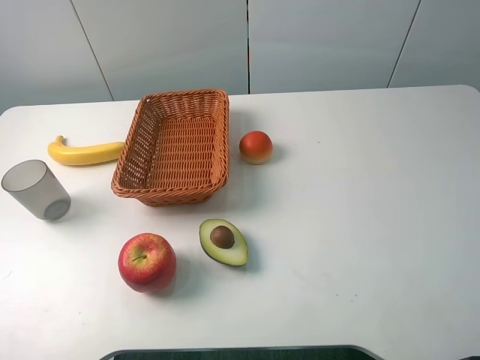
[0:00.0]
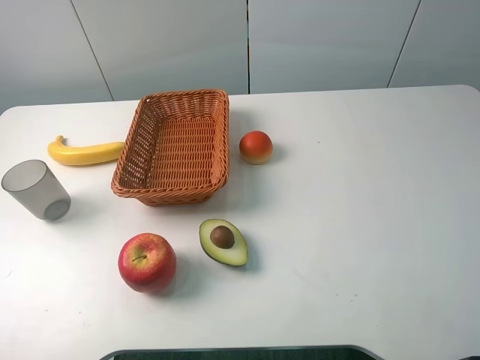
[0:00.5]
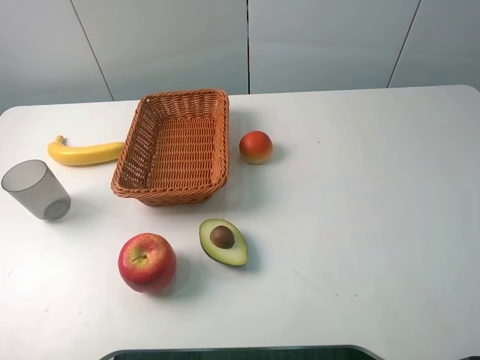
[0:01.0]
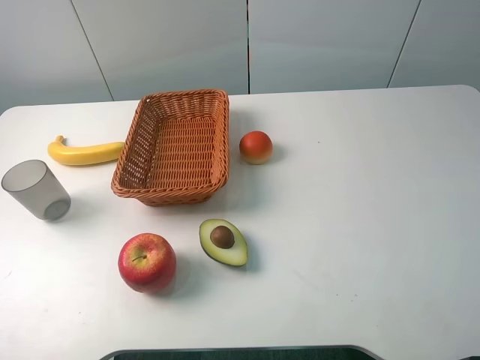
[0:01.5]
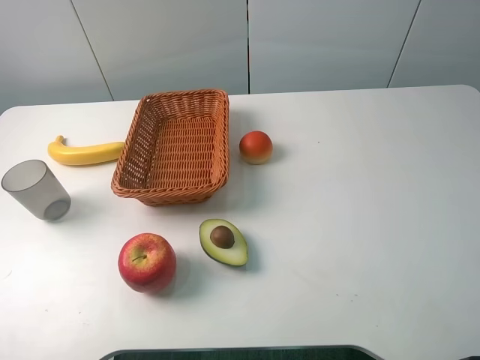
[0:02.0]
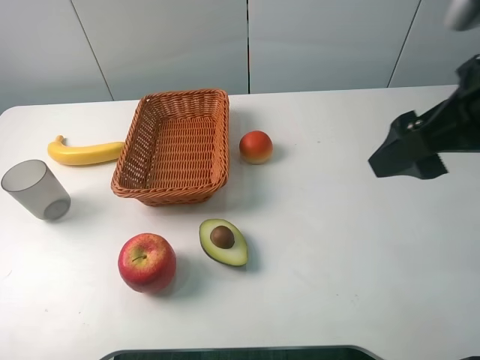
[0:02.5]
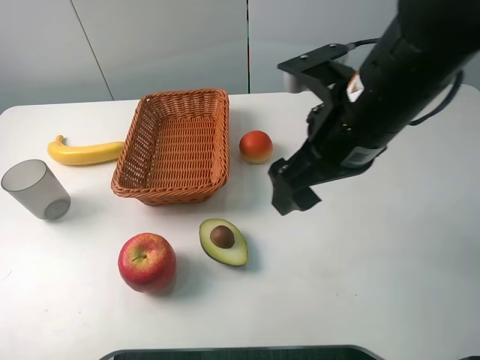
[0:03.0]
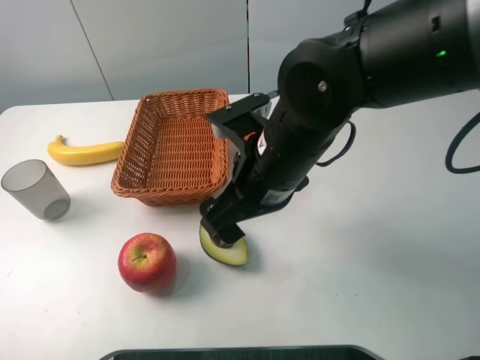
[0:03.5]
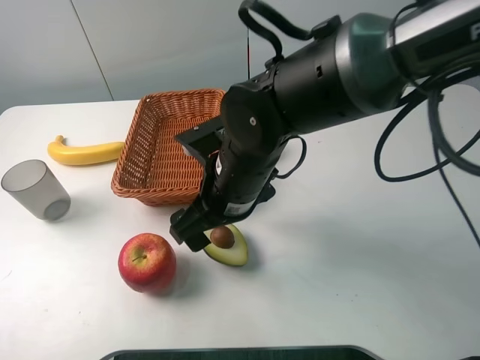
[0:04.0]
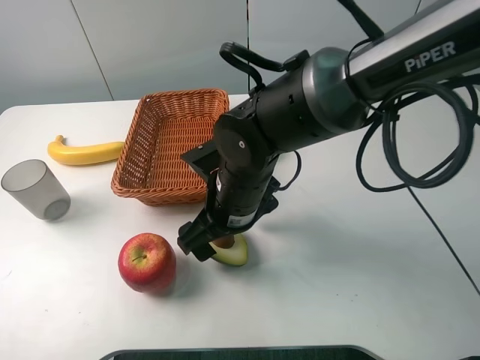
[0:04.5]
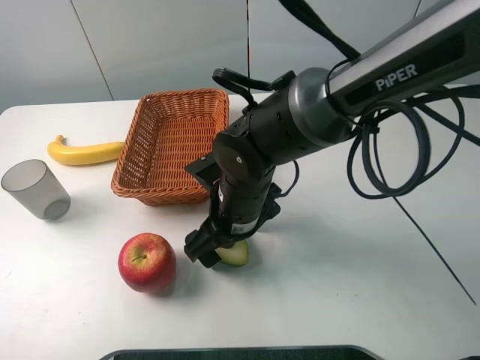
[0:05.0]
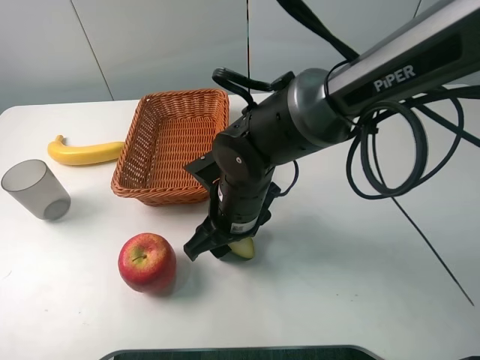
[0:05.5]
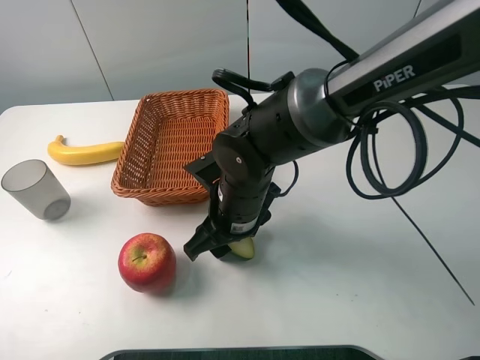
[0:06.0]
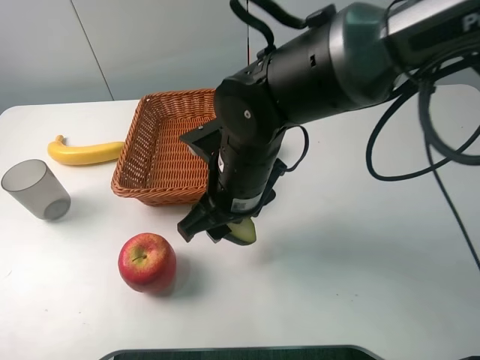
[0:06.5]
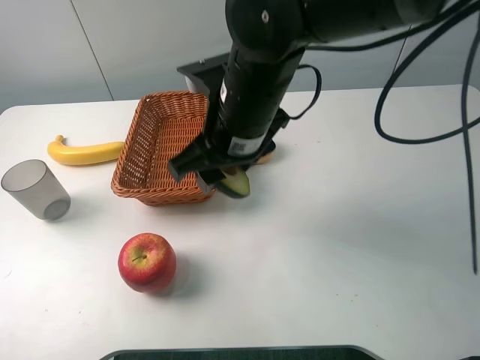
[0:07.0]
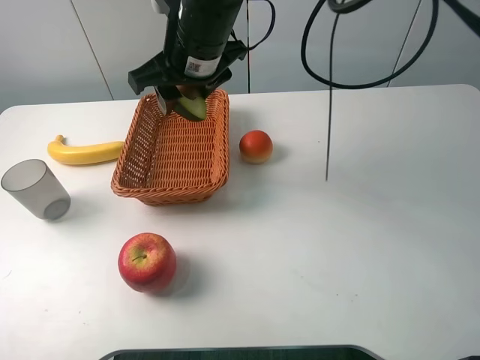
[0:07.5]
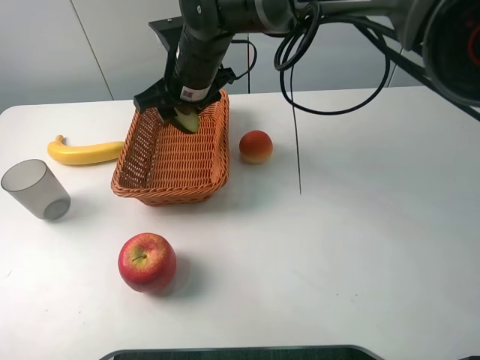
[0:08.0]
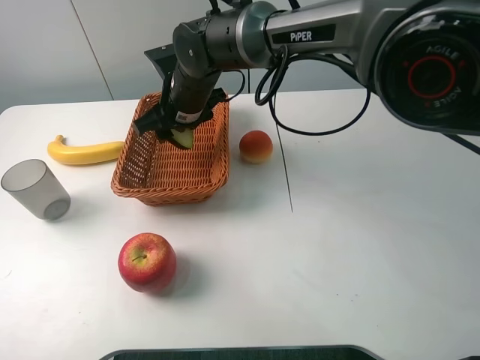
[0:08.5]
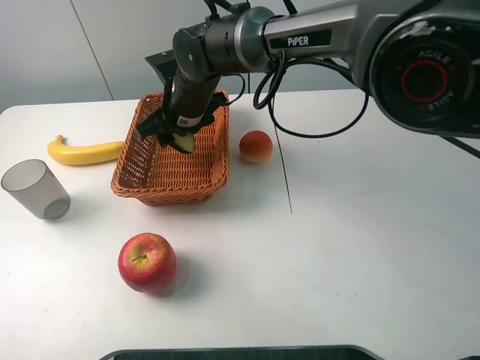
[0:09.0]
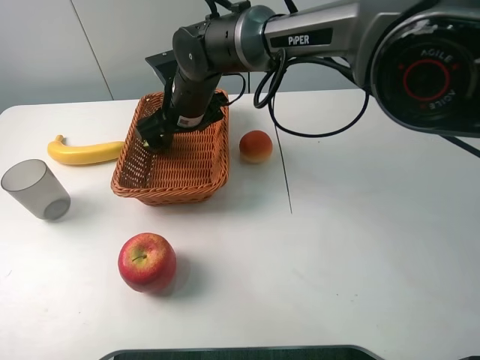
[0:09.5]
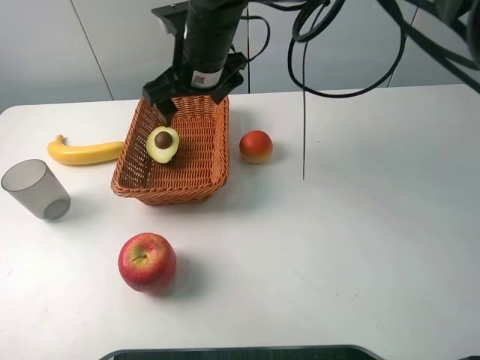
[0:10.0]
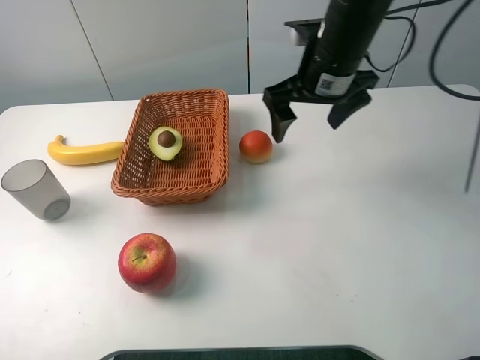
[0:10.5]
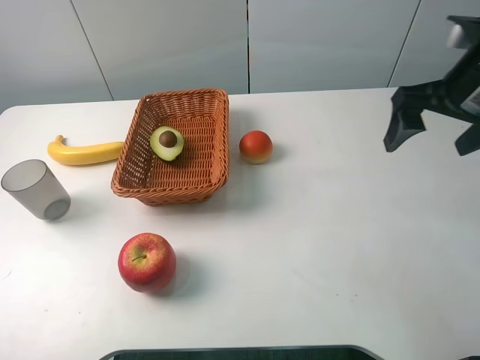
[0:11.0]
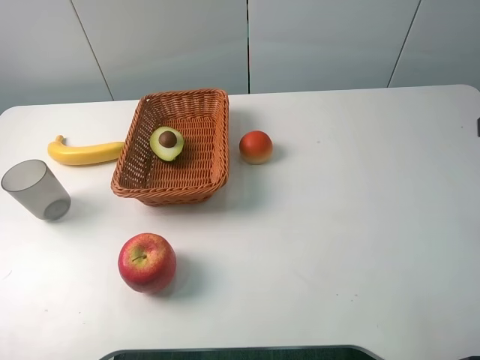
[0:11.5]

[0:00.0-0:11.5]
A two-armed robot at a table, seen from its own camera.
0:02.0 to 0:04.0: The right gripper heads to the left, downward and forward, covering some 35 cm.
0:04.0 to 0:06.0: The right gripper closes its fingers.
0:06.0 to 0:07.5: The right gripper heads upward and forward, covering some 20 cm.
0:07.5 to 0:09.5: The right gripper shifts some 10 cm downward, and opens its fingers.
0:09.5 to 0:11.5: The right gripper is displaced to the right, backward and upward by about 50 cm.
